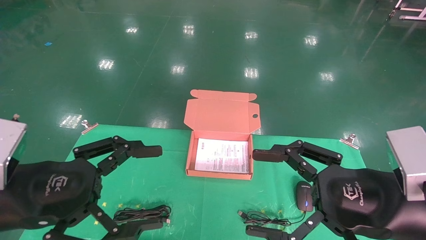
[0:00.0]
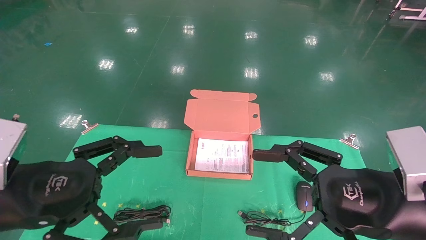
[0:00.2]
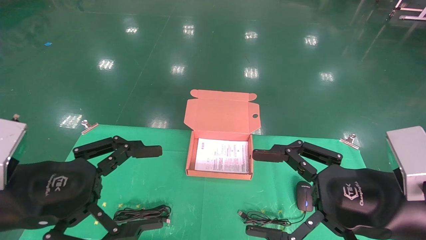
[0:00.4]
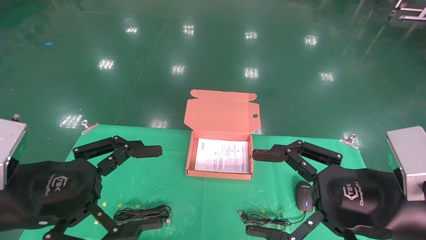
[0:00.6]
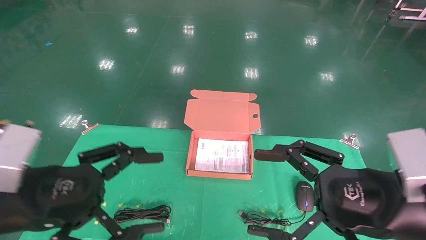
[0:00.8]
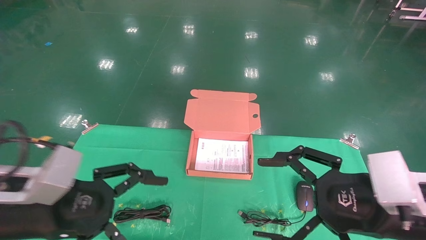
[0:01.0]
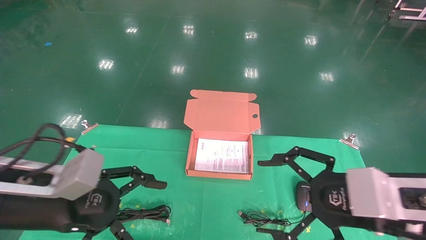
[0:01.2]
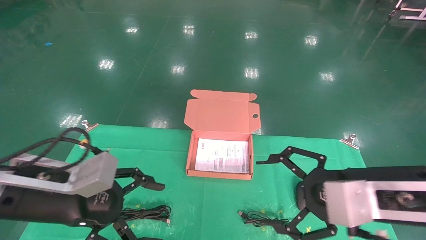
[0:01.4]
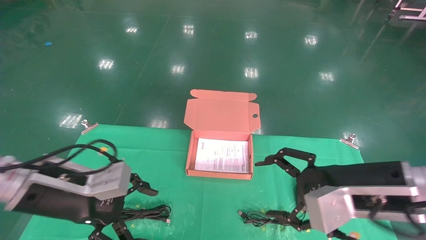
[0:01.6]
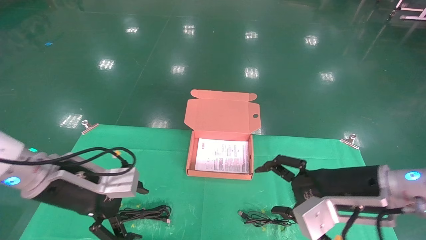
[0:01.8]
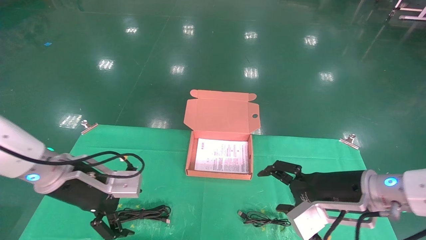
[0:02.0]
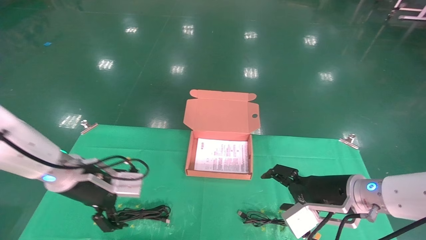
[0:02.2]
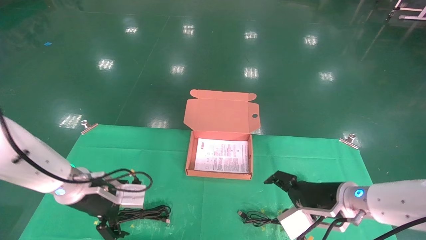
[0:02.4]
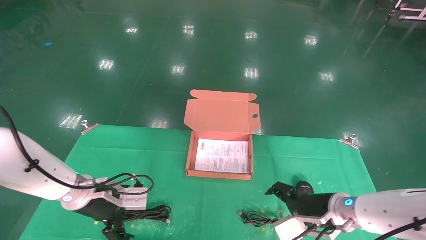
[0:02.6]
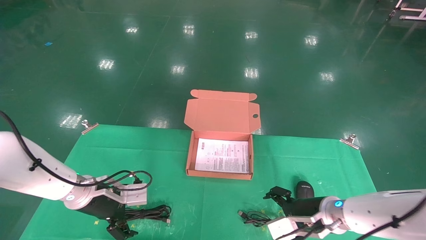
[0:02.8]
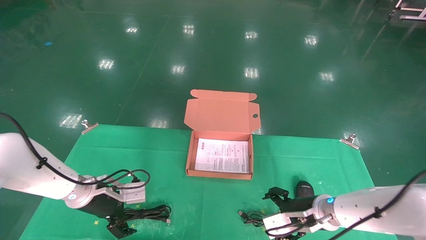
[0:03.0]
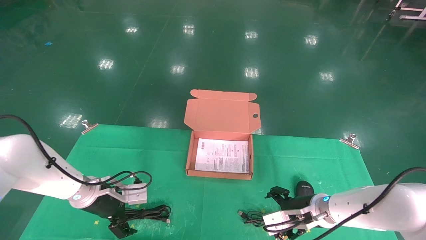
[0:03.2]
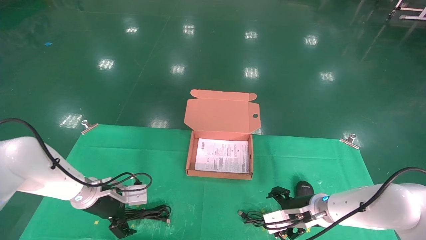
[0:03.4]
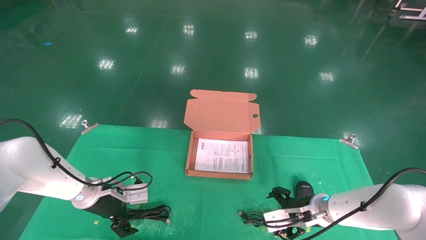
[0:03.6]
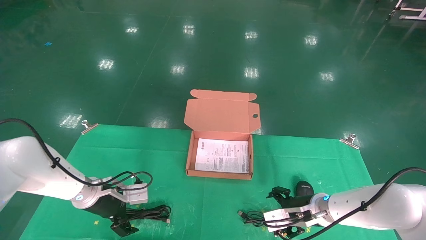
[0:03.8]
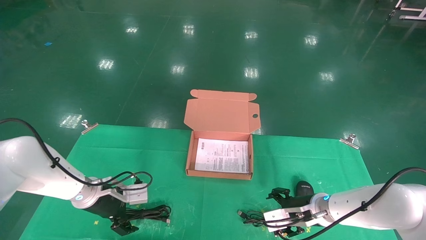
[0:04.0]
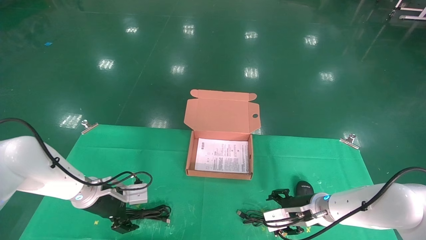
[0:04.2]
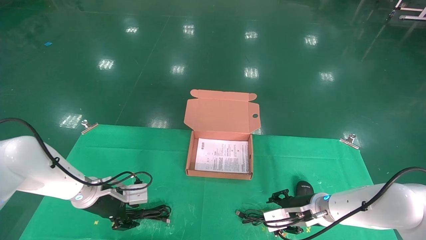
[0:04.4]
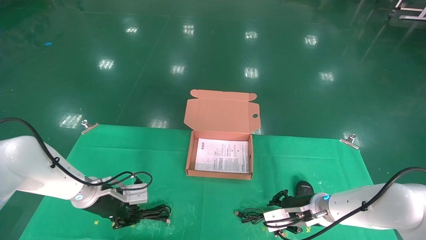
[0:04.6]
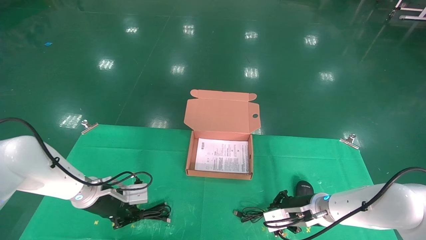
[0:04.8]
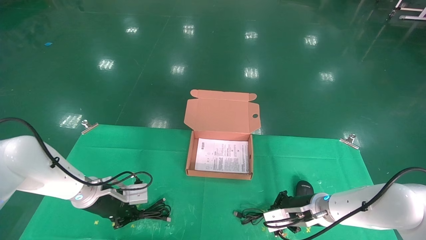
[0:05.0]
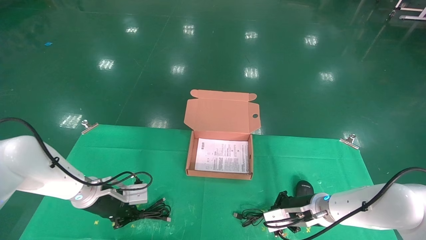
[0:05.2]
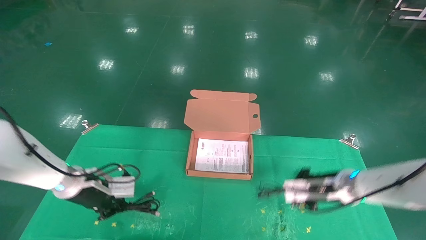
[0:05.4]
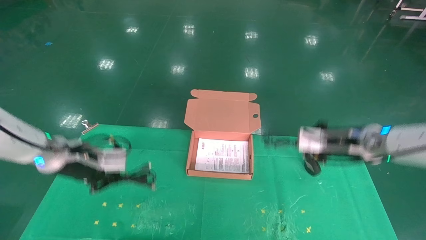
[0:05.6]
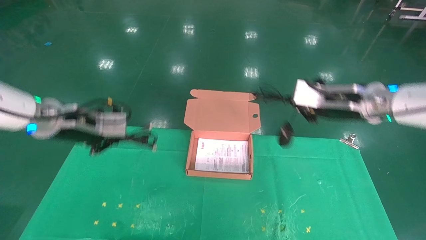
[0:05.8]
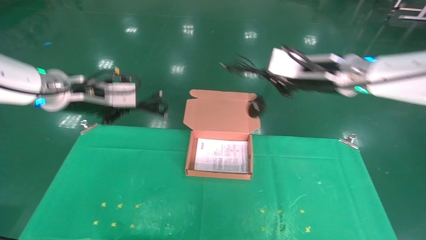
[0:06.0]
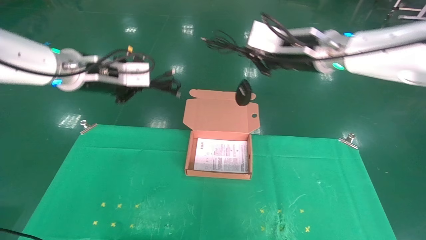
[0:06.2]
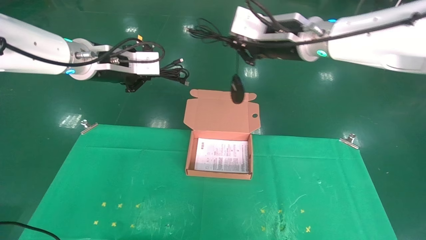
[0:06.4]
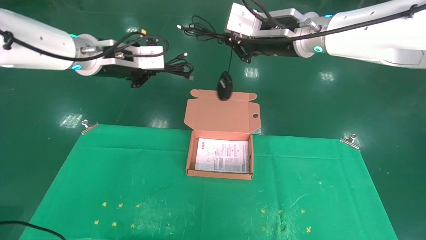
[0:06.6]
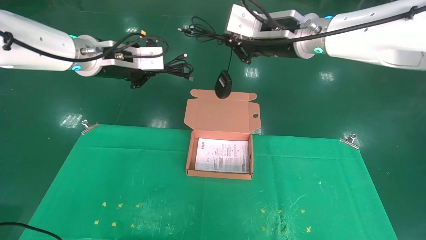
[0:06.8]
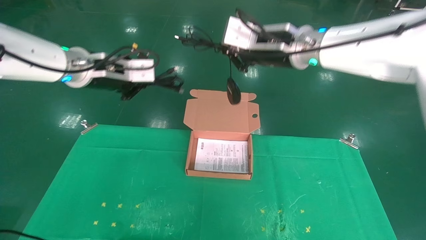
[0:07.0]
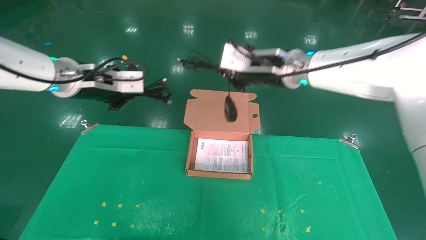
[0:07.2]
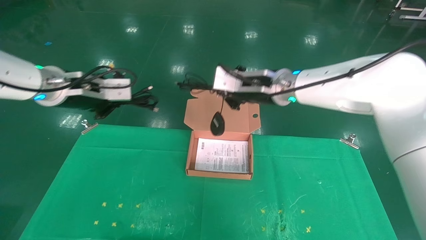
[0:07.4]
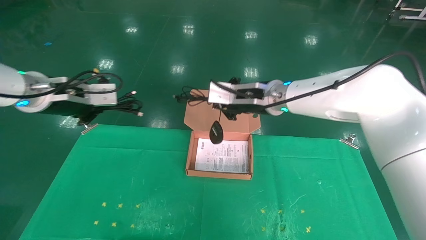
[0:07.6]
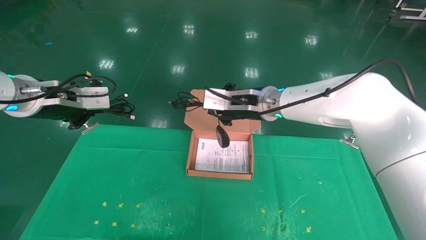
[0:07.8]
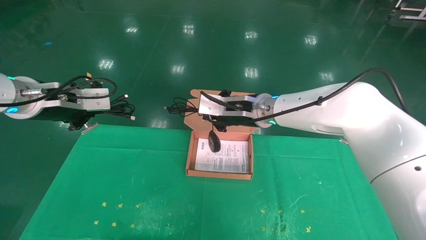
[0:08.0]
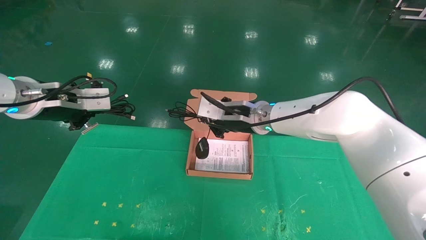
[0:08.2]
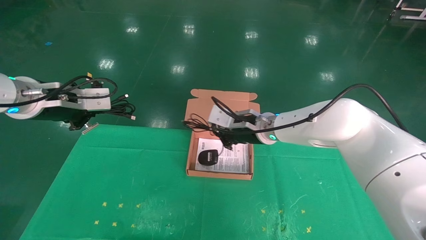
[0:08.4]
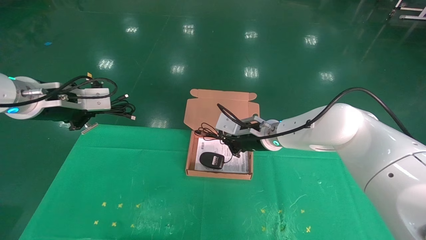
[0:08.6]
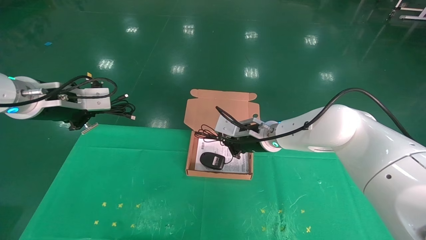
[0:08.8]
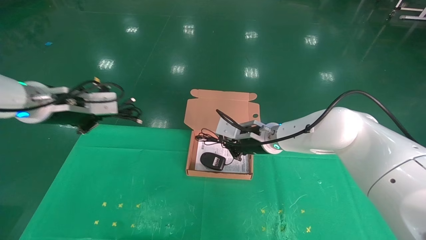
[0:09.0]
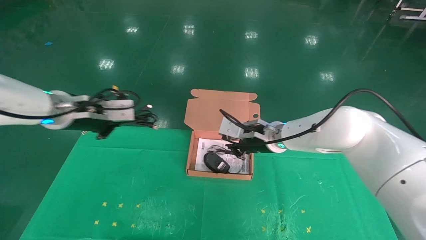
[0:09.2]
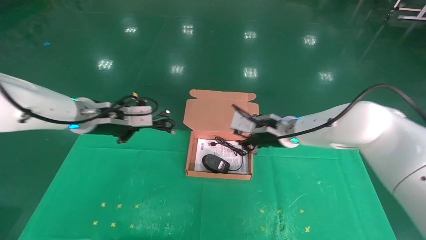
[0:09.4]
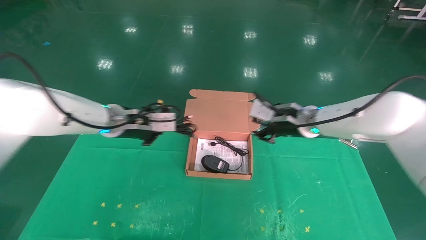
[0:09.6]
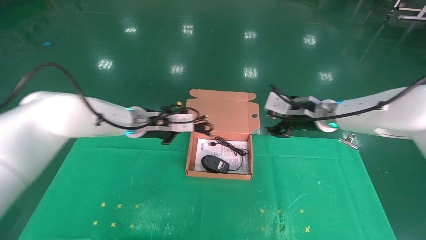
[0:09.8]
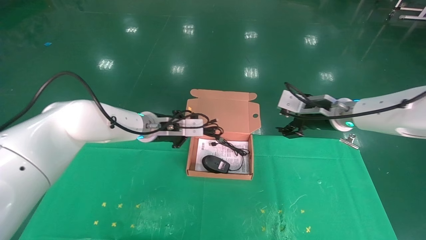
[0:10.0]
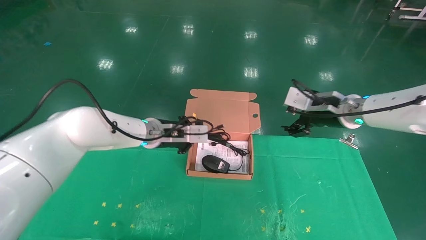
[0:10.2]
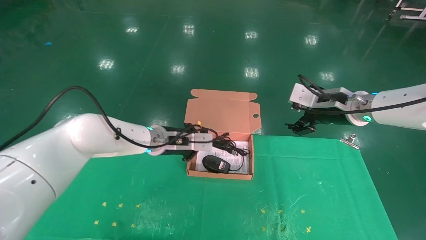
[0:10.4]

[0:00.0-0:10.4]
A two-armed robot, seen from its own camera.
Task of the whole recording: grasp data cable left put into box grasp mouse right put into box.
Step, 0:01.0 to 0:05.6: Grab and pick up both the mouse and power cord from the accessory packaging area at the same time.
0:00.0 to 0:01.4: The left gripper shifts some 5 cm forward.
0:01.4 to 0:03.0: The right gripper heads downward and forward, covering approximately 20 cm. Meanwhile the left gripper goes about 20 cm forward and downward.
0:03.0 to 0:04.4: The right gripper closes its fingers. The left gripper closes.
0:04.4 to 0:06.0: Both grippers move upward, roughly 25 cm. The left gripper closes up. Meanwhile the right gripper closes up.
0:06.0 to 0:07.4: The right gripper shifts approximately 10 cm to the left.
0:07.4 to 0:09.0: The right gripper moves downward, some 10 cm.
0:09.0 to 0:10.4: The right gripper shifts about 20 cm to the right and upward, and opens up; the left gripper shifts approximately 25 cm to the right, downward and forward.

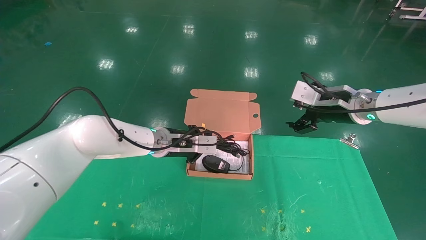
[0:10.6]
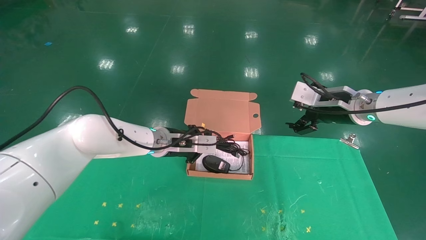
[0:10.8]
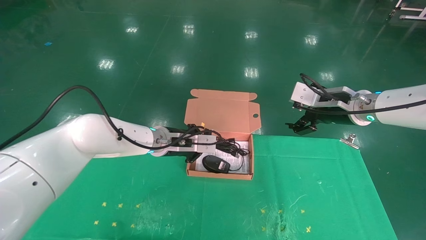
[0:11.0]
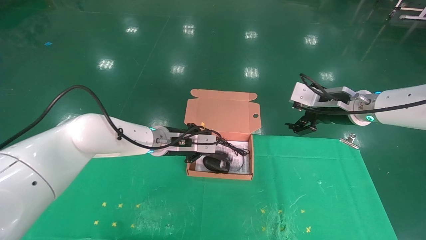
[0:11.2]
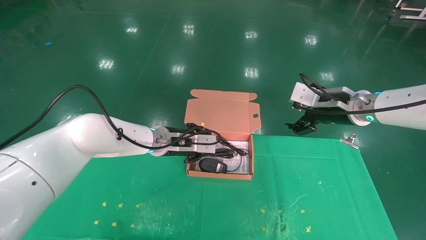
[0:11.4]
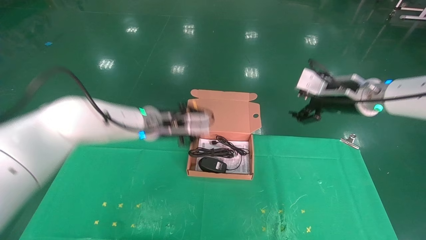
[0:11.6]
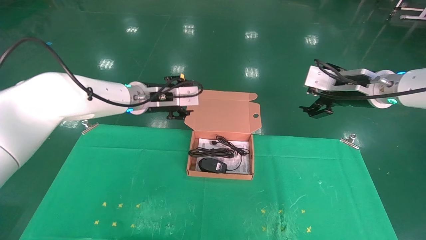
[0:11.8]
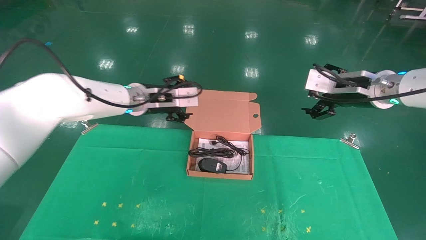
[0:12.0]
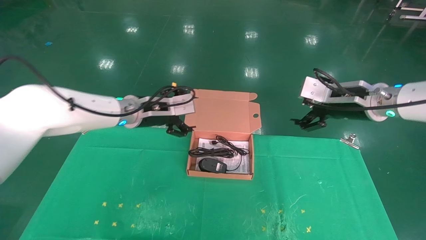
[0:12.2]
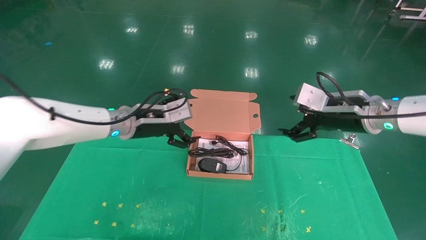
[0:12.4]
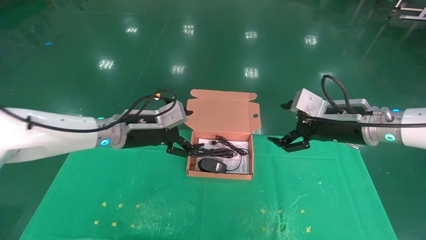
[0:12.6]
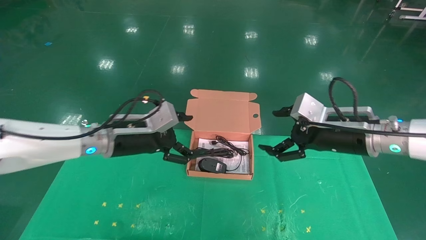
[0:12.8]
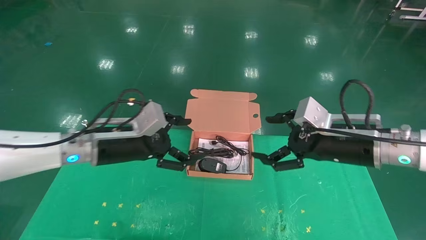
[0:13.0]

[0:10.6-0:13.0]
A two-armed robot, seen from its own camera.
Task of the whole recording: grasp data cable left put into box grasp mouse right put into box.
0:10.6 to 0:11.8: The left gripper travels upward by some 10 cm, and opens up.
0:11.8 to 0:13.0: The right gripper heads backward and downward, covering about 10 cm. The left gripper is displaced backward, to the left and downward by roughly 10 cm, and opens its fingers.

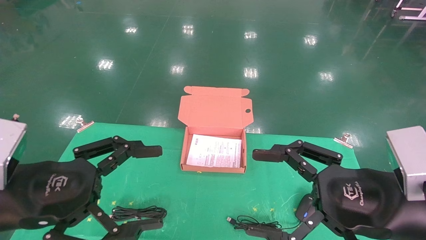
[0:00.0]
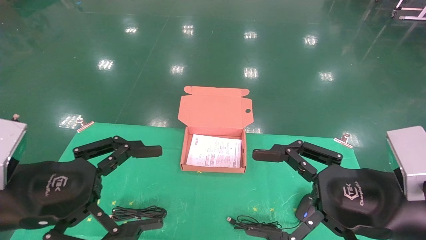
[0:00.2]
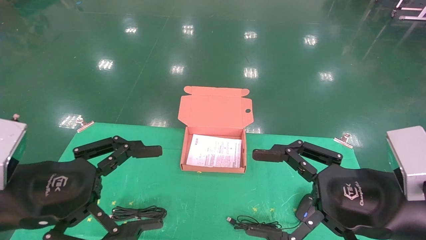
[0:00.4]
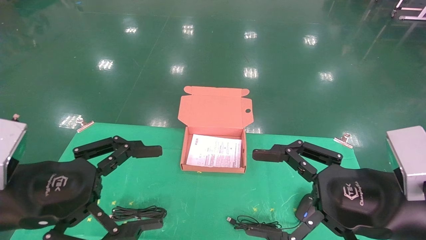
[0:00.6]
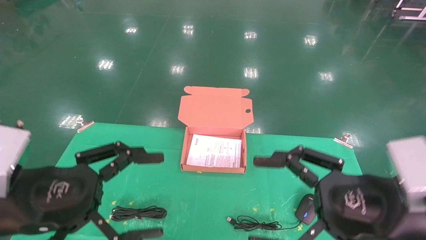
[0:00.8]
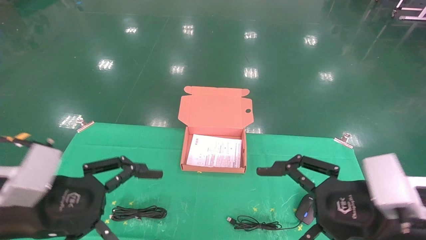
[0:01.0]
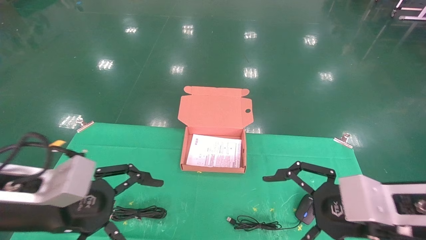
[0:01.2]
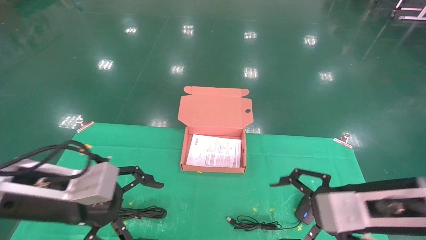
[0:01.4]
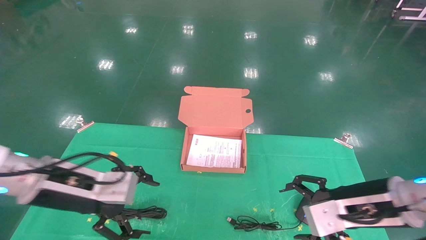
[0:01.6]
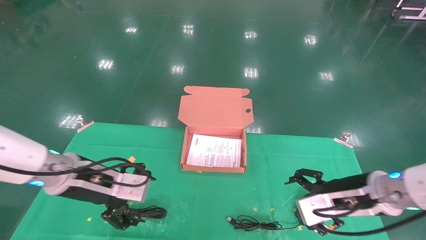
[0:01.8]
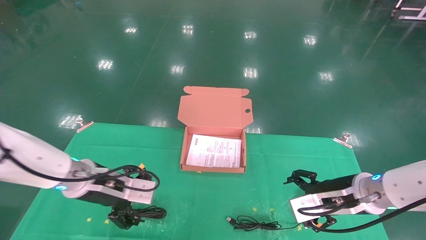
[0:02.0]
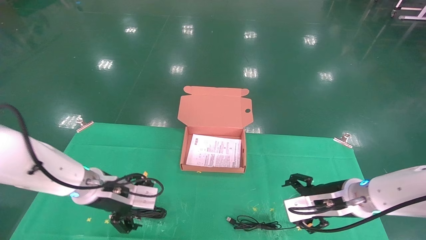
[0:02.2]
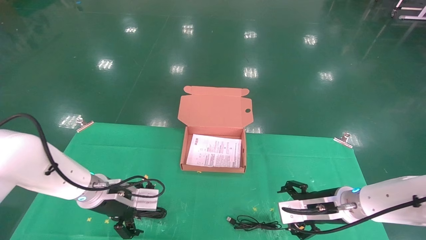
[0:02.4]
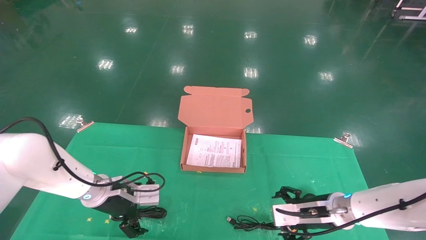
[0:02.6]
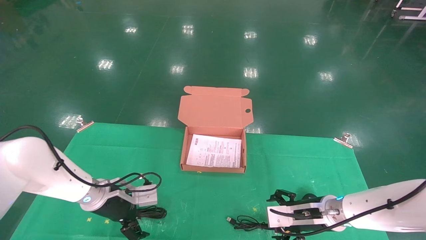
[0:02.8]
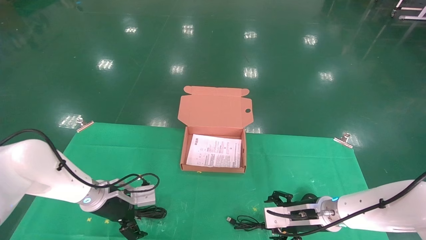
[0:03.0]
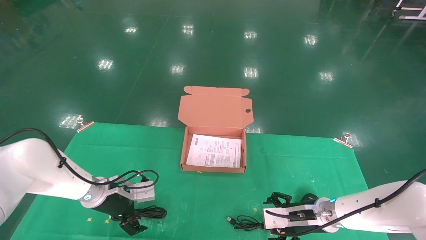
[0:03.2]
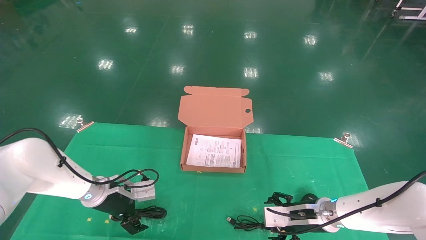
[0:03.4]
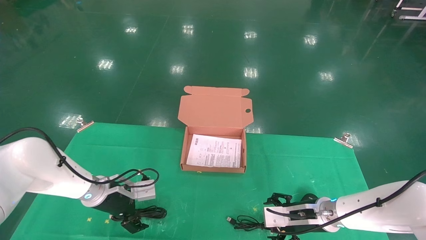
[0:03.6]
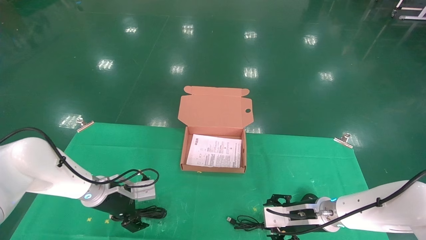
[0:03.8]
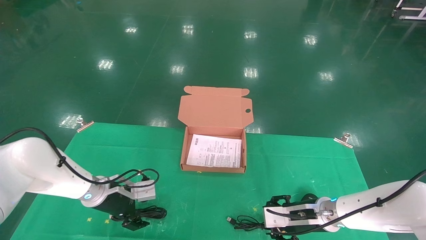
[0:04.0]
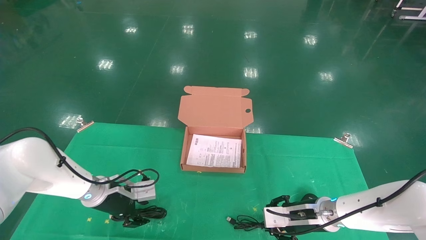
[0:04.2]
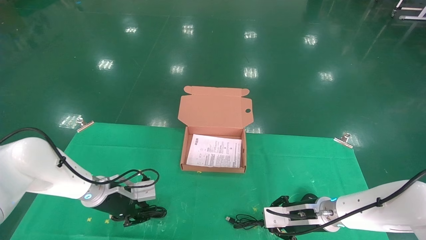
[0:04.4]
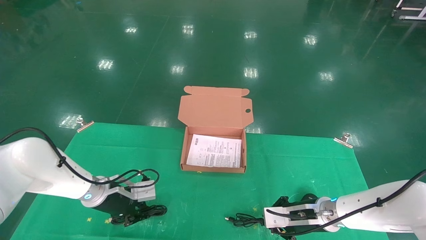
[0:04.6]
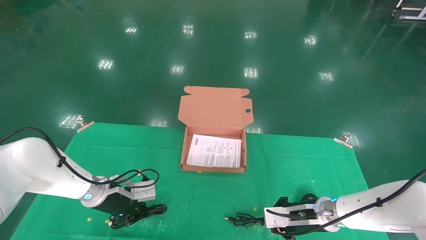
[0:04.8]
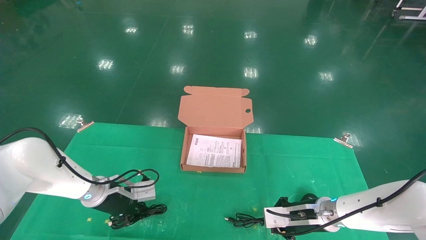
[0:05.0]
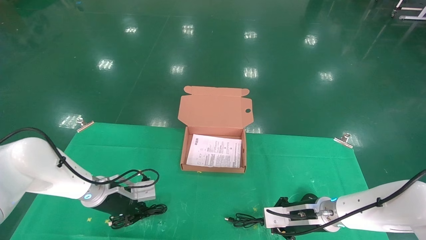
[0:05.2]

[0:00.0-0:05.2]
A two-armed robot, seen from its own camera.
Task of the whole recording: grasp data cable left put into box grasp mouse right put into box.
0:00.0 to 0:01.8: Both grippers move forward and downward, some 15 cm.
0:01.8 to 0:03.4: The two grippers go approximately 15 cm downward and forward.
0:03.4 to 0:05.2: The left gripper closes; the right gripper closes its fingers.
